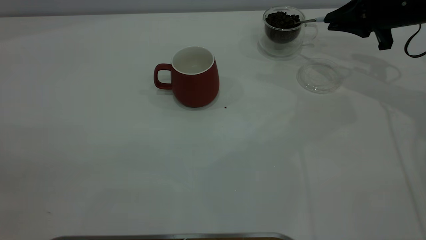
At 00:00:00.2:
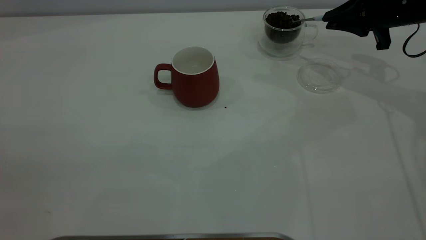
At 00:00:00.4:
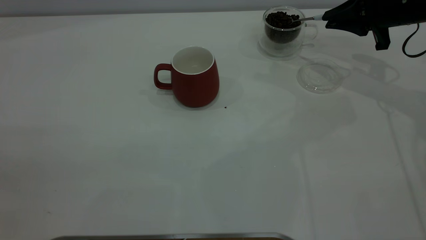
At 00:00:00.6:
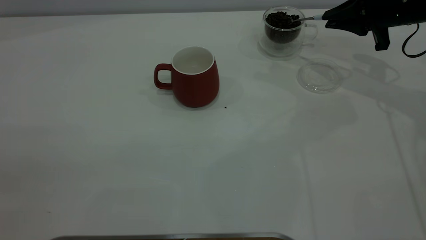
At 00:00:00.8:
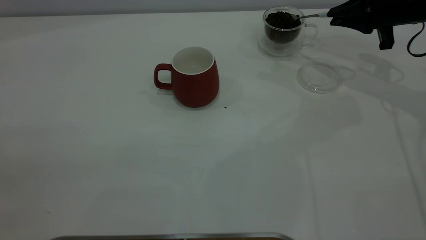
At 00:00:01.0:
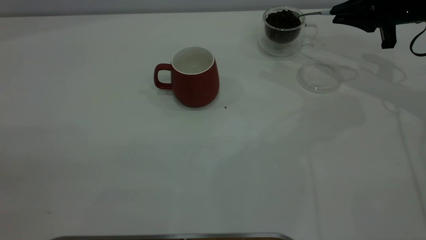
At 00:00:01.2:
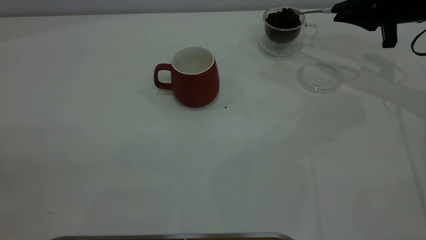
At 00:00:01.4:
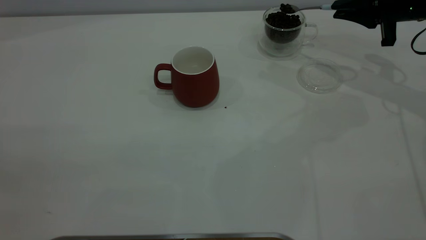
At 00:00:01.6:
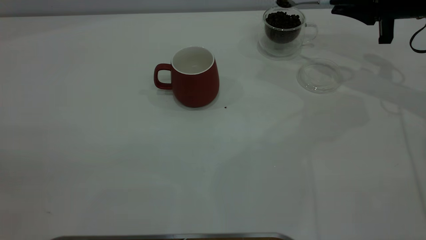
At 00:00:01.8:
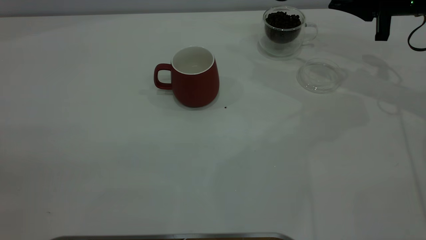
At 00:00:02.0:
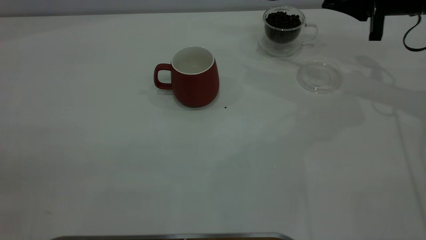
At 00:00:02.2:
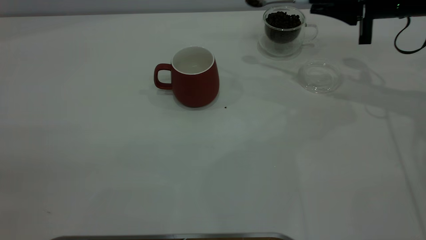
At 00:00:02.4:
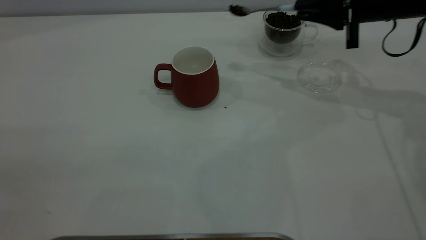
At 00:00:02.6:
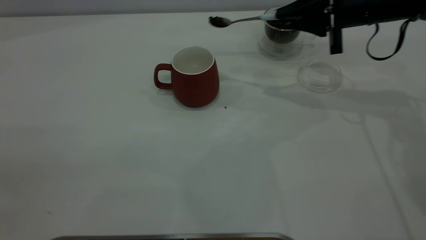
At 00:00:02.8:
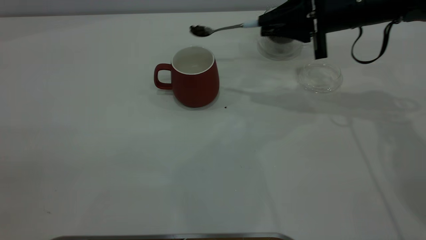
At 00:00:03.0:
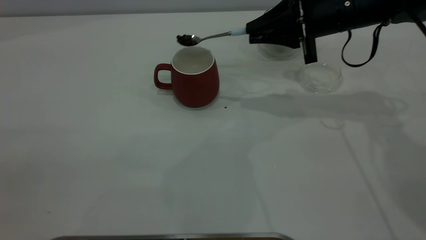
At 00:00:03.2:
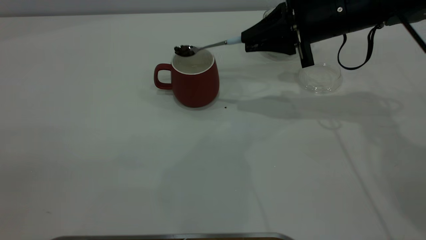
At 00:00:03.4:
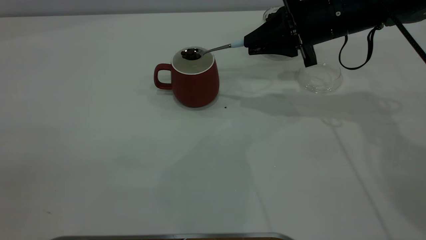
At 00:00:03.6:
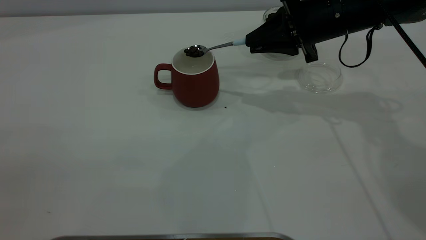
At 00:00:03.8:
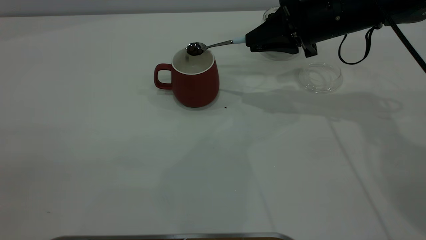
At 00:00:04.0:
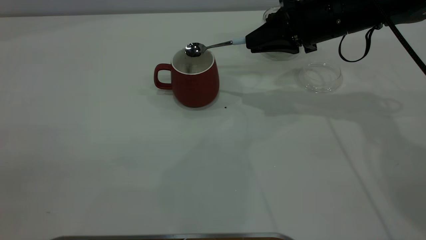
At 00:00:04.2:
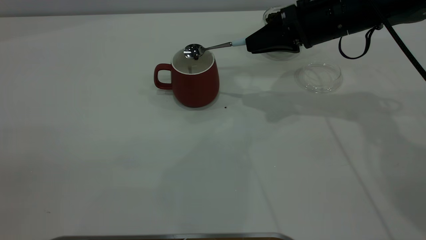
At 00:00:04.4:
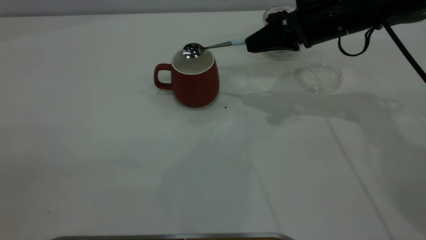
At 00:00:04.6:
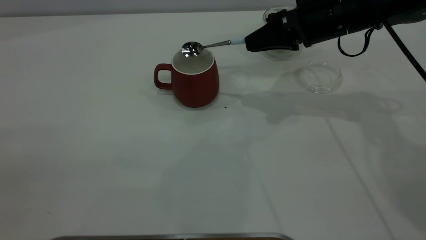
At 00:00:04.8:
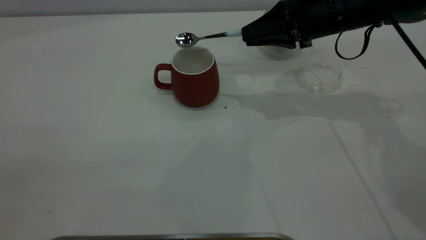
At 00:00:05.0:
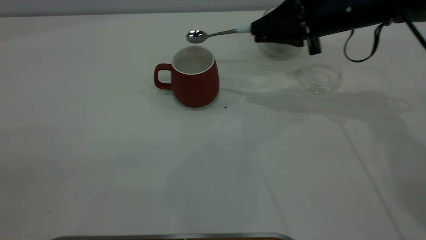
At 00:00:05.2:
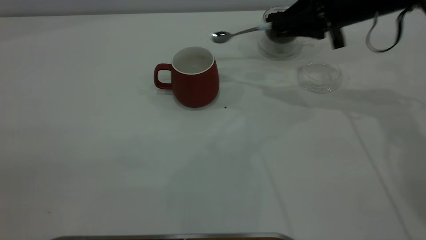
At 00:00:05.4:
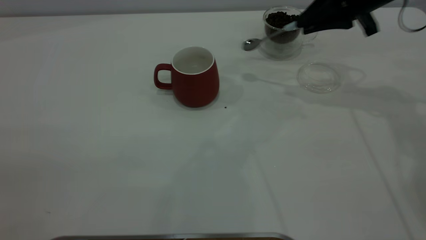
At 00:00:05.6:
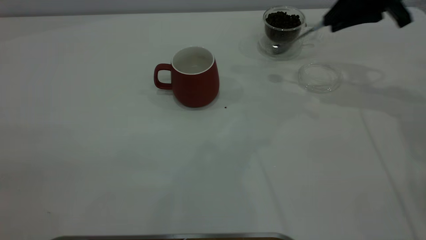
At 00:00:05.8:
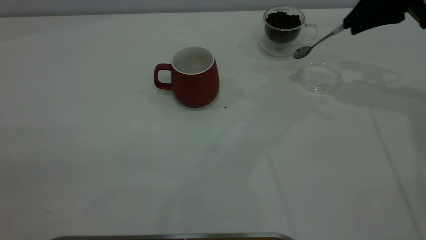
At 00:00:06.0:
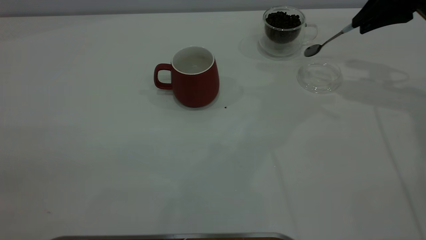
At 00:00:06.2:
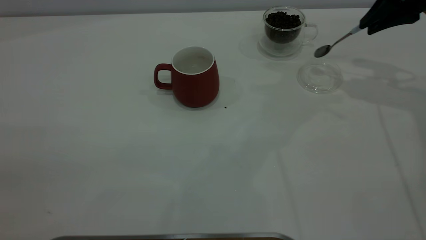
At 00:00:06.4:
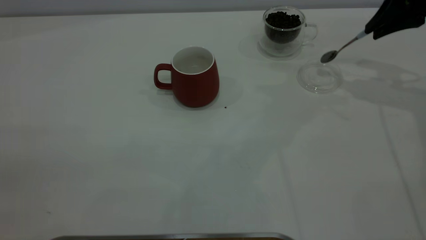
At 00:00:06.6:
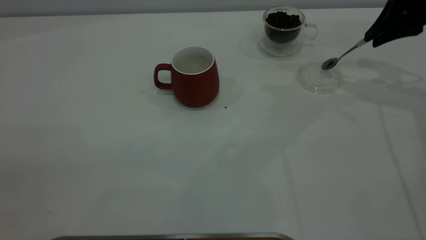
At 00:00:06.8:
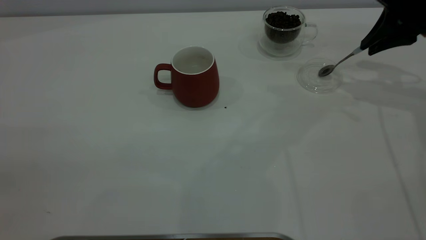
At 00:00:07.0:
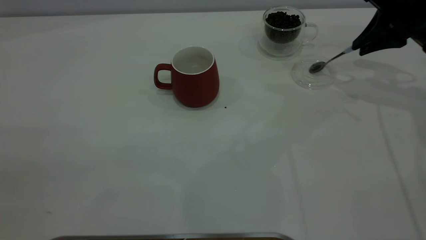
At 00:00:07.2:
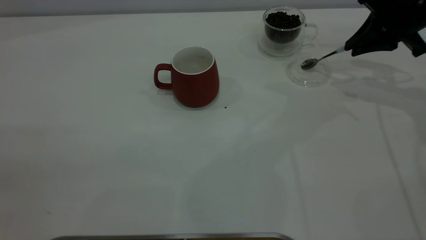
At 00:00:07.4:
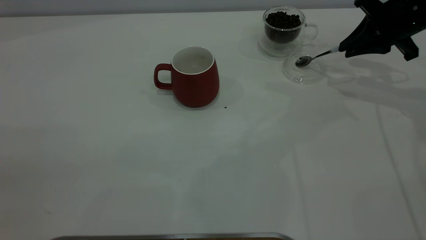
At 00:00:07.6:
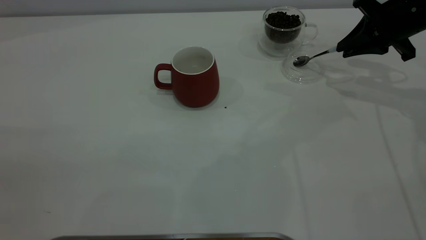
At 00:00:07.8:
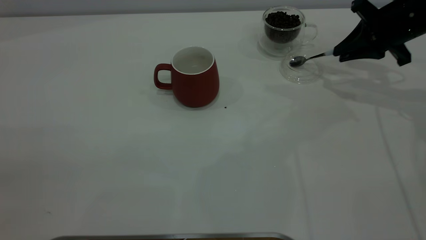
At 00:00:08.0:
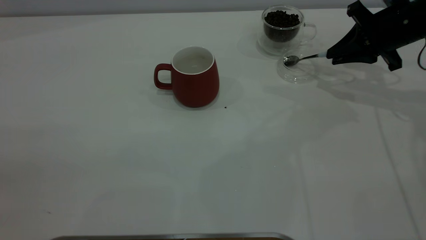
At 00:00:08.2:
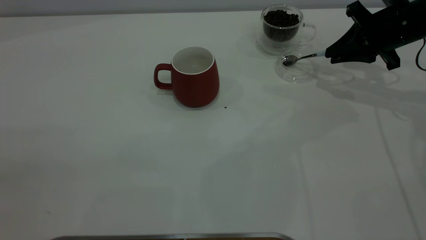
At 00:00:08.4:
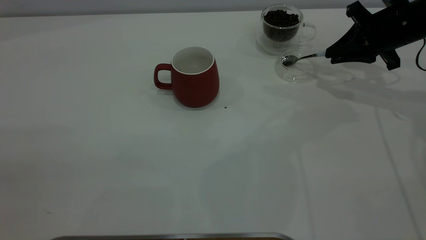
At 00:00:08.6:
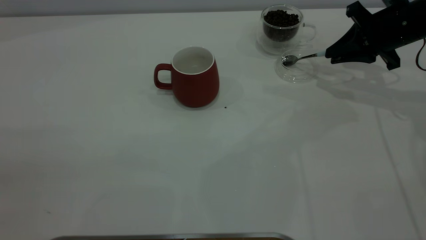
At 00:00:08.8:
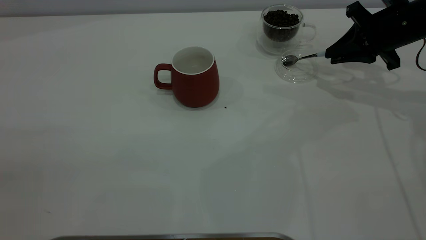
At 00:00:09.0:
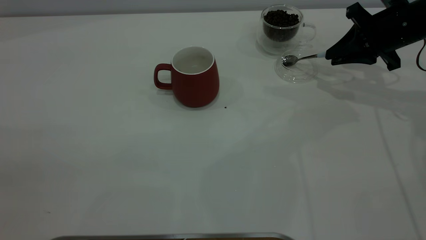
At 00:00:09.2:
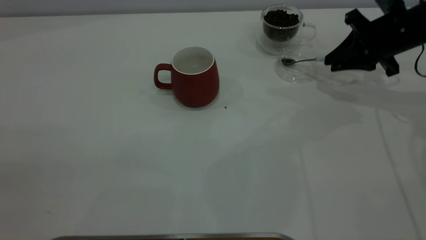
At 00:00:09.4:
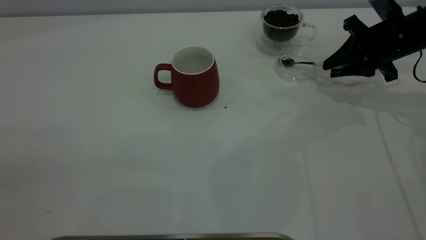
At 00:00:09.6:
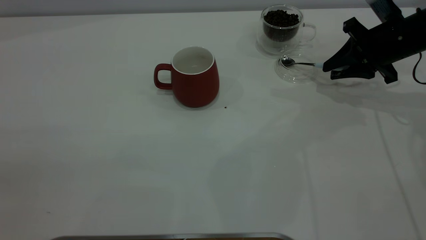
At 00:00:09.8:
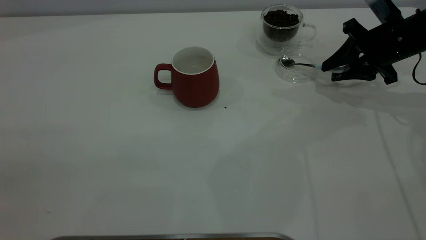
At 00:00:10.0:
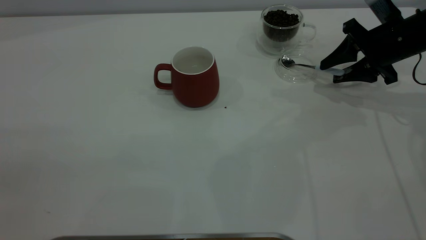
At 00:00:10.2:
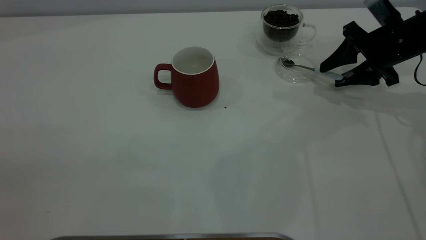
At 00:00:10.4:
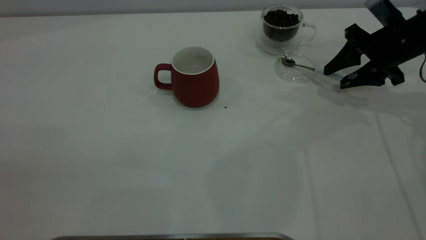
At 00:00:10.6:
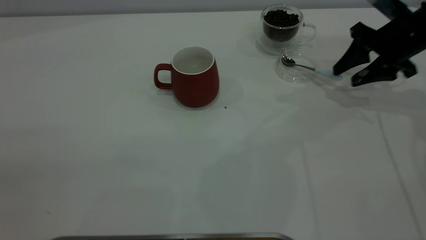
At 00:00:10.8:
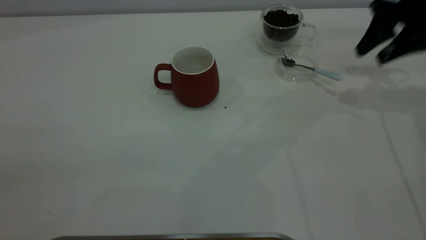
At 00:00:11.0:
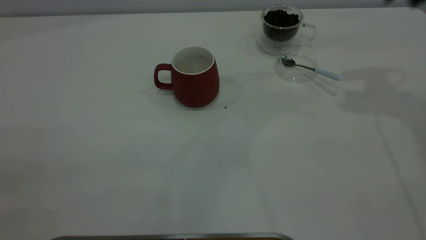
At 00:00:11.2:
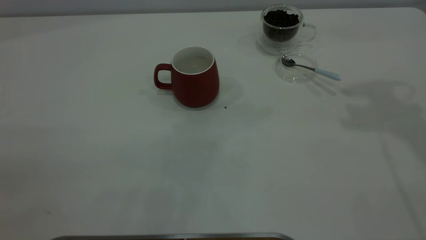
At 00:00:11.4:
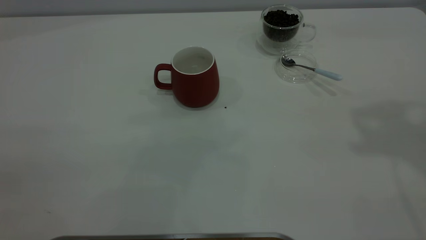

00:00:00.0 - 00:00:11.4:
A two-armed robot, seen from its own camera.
Task of the whole recording: the left gripper place the red cup in the center of the table, the right gripper take the blue spoon from the cup lid and scoop out the coffee beans from the coffee cup and put them into the red cup, the right gripper put the spoon back into the cup lid.
Step, 00:00:00.0 - 00:00:04.6: Scoop a spoonful of beans into the cup.
Step, 00:00:04.8 - 00:00:10.6: Place the spoon back in its original place.
00:00:00.0 - 00:00:01.4: The grippers move only a little.
00:00:01.4 - 00:00:02.8: The right gripper moves to the left, some 10 cm.
00:00:04.2 - 00:00:05.6: The right gripper moves to the right and upward, roughly 10 cm.
00:00:05.6 - 00:00:07.2: The right gripper travels downward by approximately 5 cm.
00:00:07.2 - 00:00:08.6: The grippers stay close to where they were, moving slightly.
00:00:08.6 - 00:00:10.0: The right gripper opens up.
00:00:10.0 - 00:00:11.4: The right gripper shifts roughly 35 cm upward.

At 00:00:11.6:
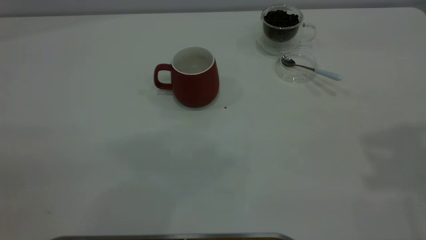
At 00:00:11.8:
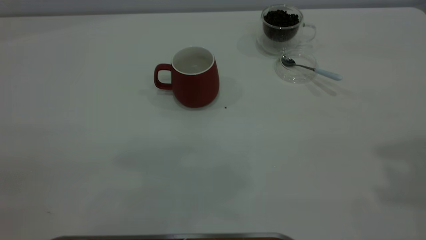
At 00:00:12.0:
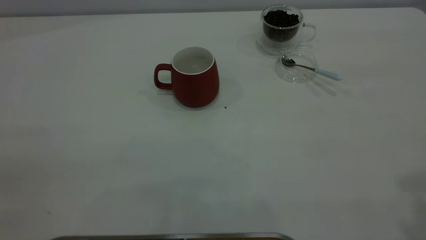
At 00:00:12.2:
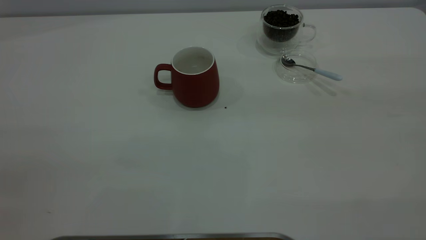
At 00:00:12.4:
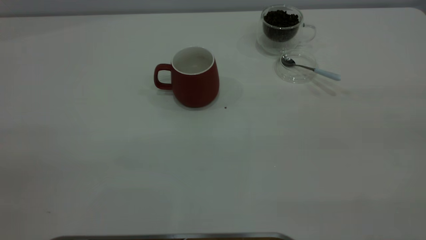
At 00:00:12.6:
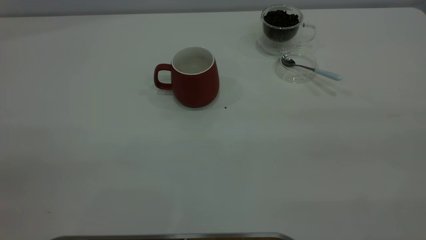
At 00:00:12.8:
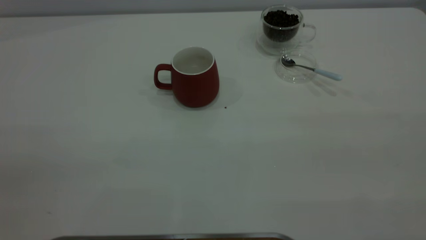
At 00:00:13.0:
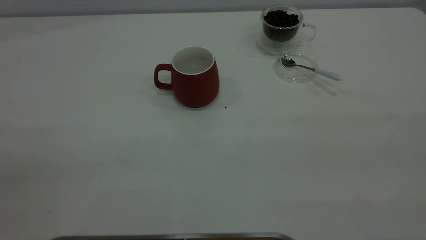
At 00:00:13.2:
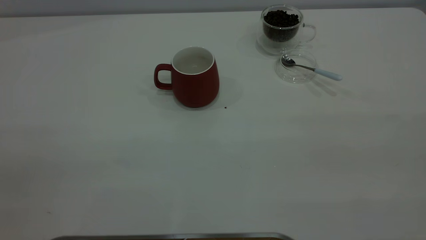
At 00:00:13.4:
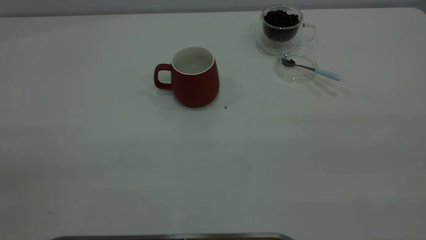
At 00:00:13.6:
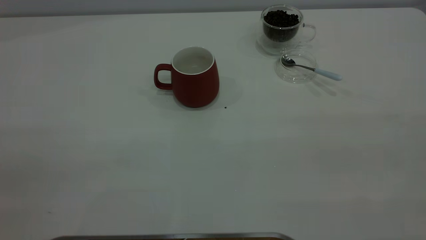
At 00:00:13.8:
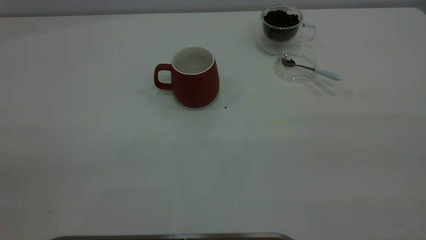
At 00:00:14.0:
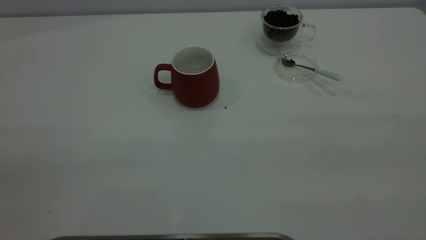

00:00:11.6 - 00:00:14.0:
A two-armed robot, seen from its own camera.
Task of the whole recording: the left gripper place the red cup in the center of the table, the right gripper take the blue spoon from the cup lid and scoop out the coffee beans from the coffee cup and put them into the red cup, the right gripper put the spoon back into the cup lid.
00:00:12.8 - 00:00:14.0: Both grippers stay put.
